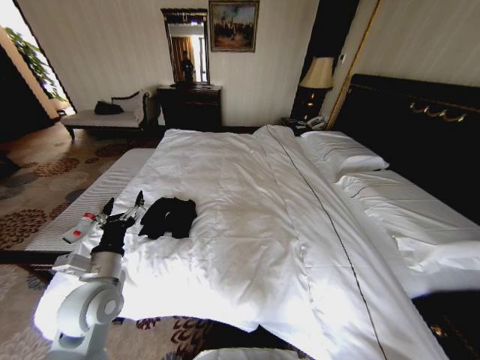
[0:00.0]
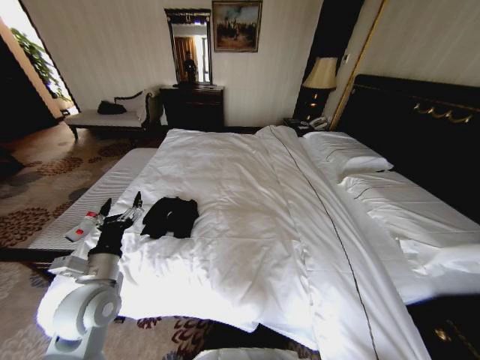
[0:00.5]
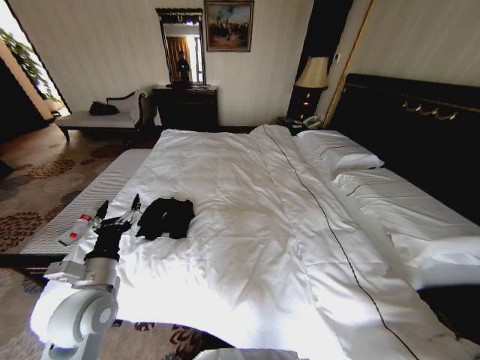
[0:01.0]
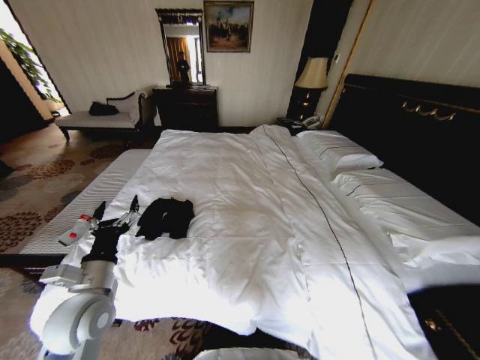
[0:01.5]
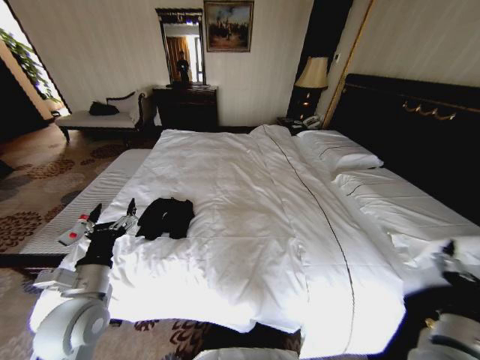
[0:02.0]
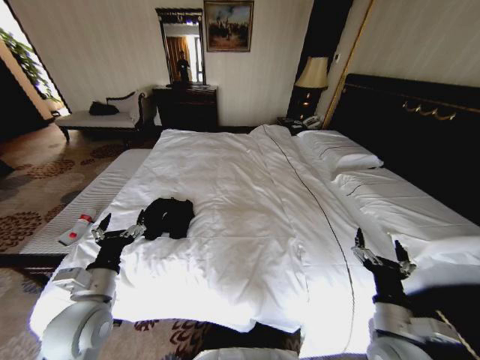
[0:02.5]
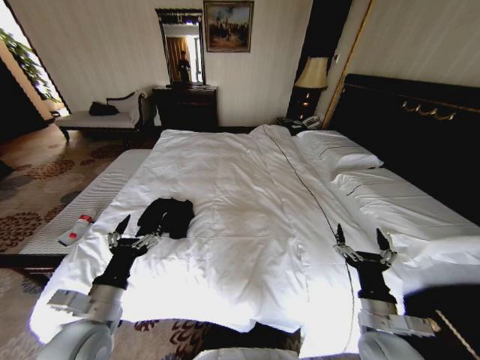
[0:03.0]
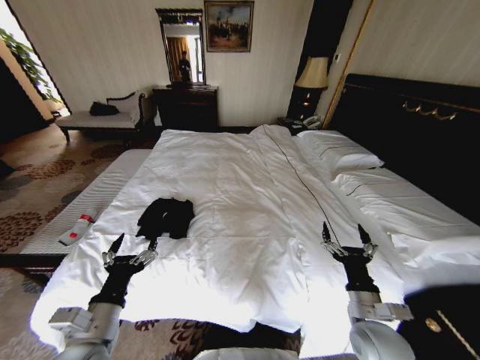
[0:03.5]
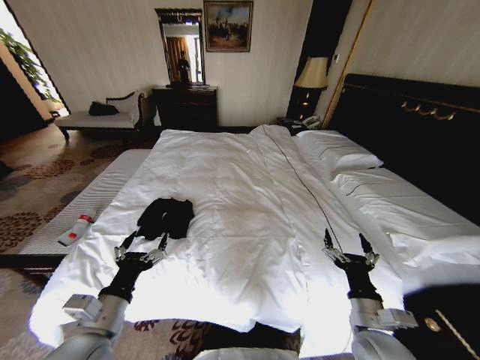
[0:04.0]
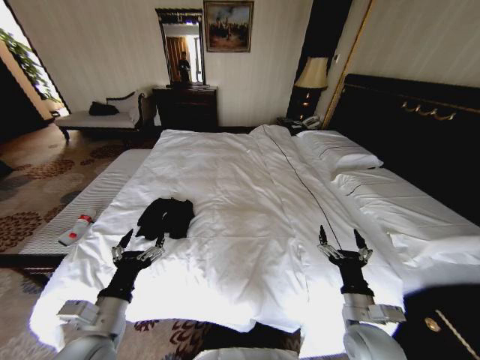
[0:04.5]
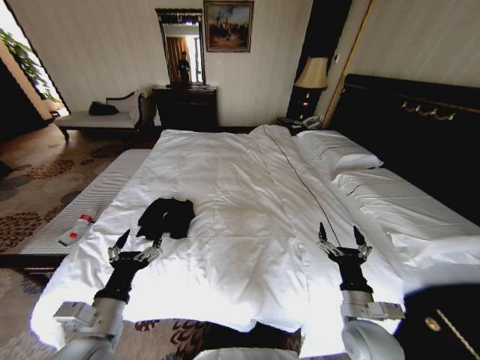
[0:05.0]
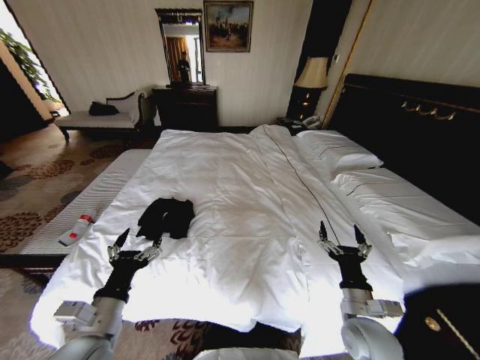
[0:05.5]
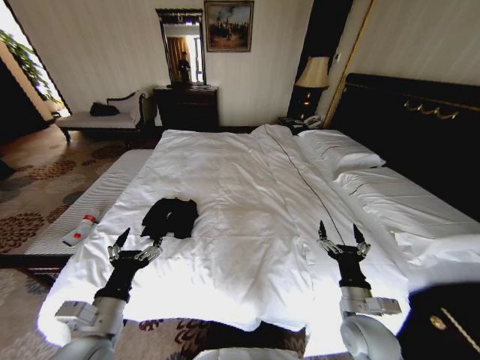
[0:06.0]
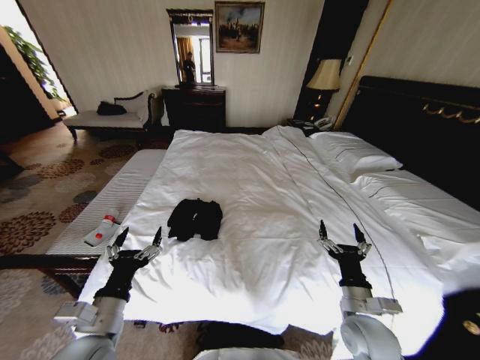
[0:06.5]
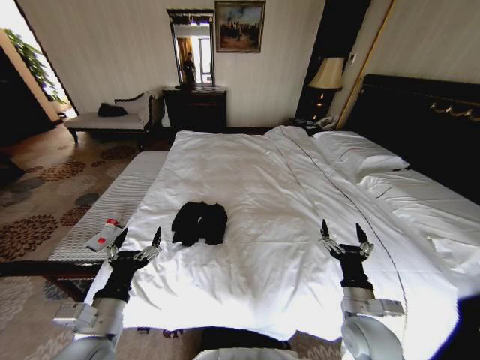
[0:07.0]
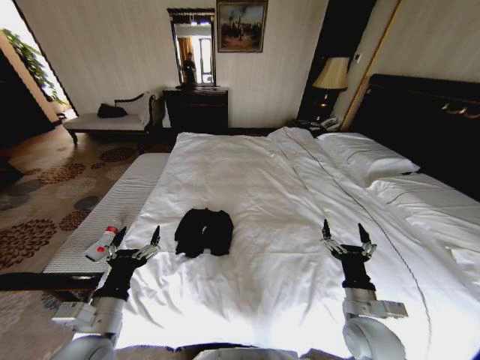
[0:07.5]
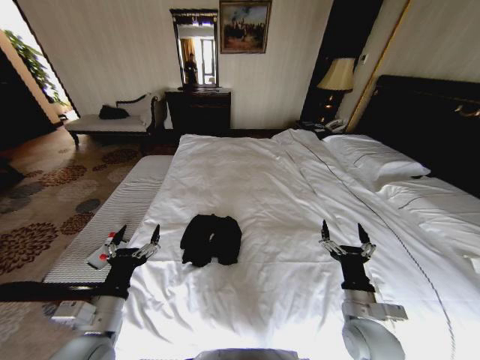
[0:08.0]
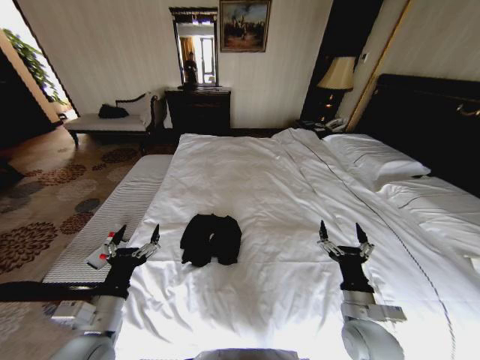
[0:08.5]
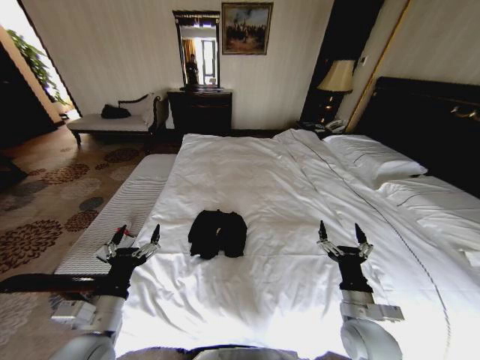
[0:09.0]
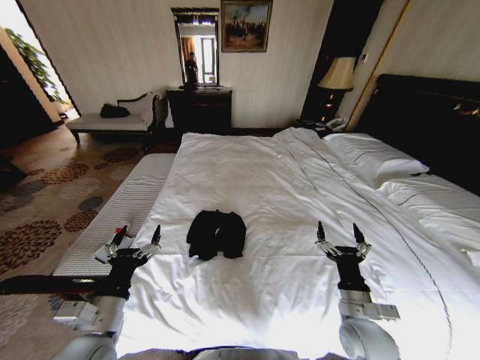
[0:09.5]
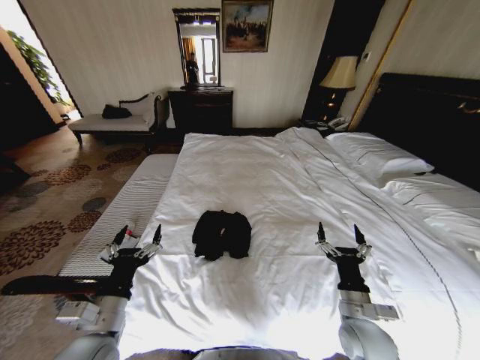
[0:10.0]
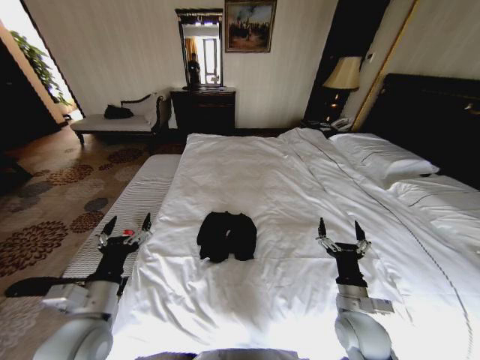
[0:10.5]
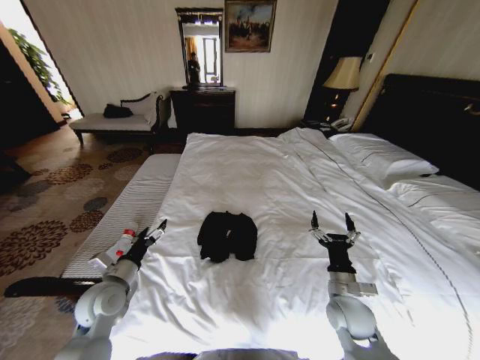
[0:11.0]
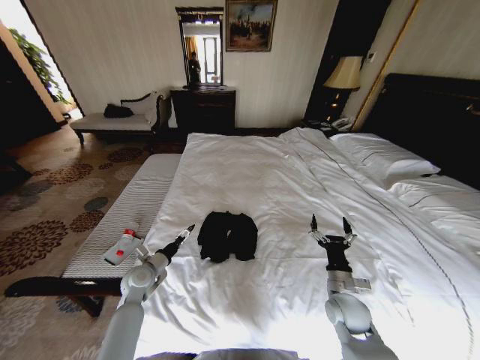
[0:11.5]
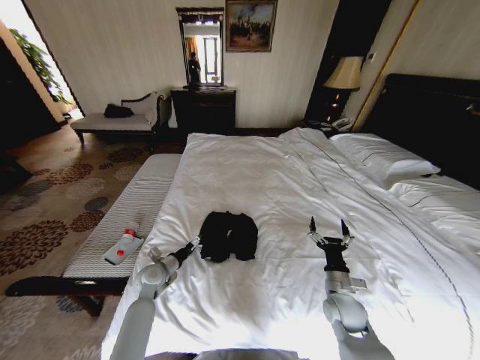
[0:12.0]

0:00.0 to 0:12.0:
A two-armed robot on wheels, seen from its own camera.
Task of the whole recording: Fold the clothes on the bed.
0:00.0 to 0:02.0: The right gripper heads upward and forward, covering roughly 25 cm, and opens.
0:02.0 to 0:04.0: The right gripper moves downward and to the left, some 10 cm, while the left gripper moves backward, approximately 5 cm.
0:04.0 to 0:06.0: The grippers make only small movements.
0:10.0 to 0:12.0: The right gripper heads forward and downward, covering approximately 10 cm; the left gripper heads forward and downward, covering roughly 25 cm.

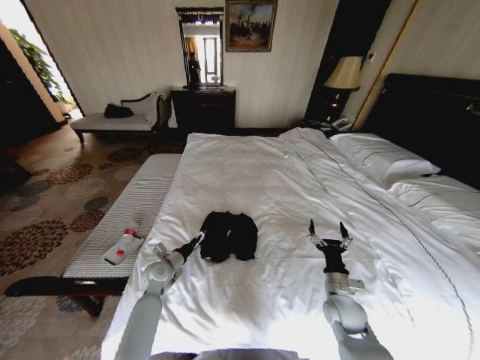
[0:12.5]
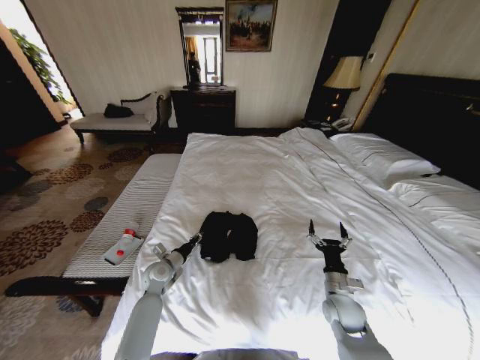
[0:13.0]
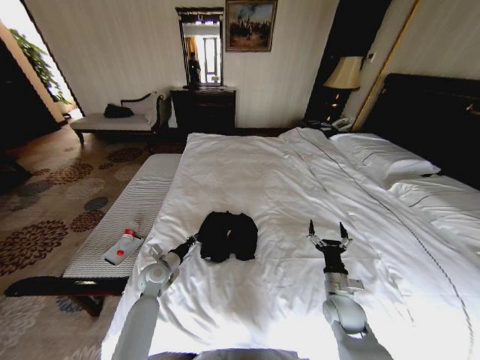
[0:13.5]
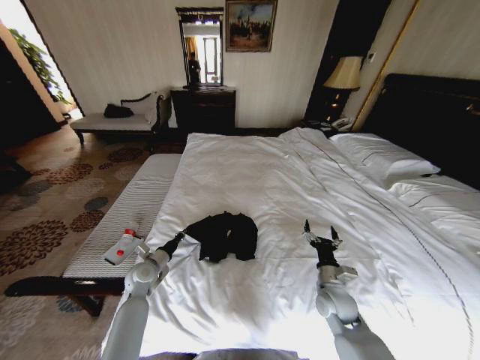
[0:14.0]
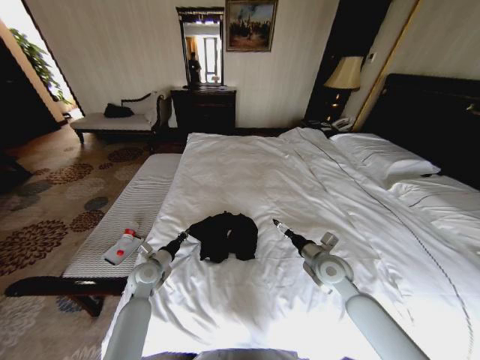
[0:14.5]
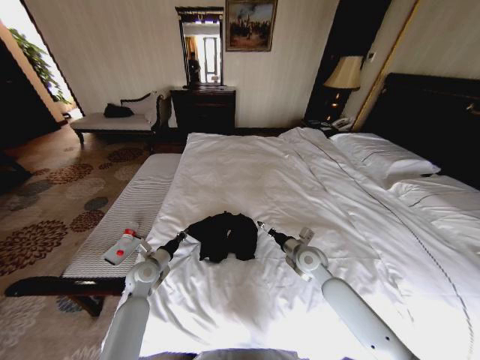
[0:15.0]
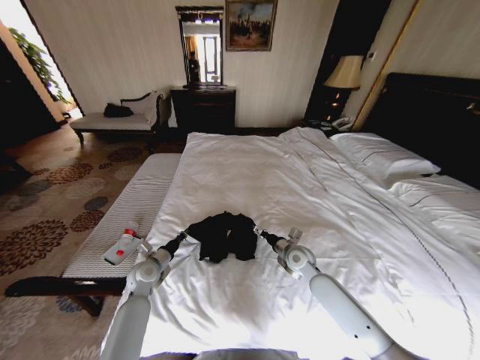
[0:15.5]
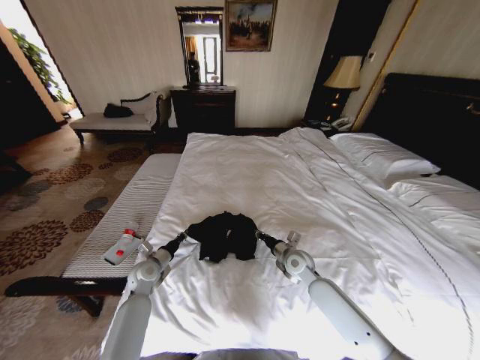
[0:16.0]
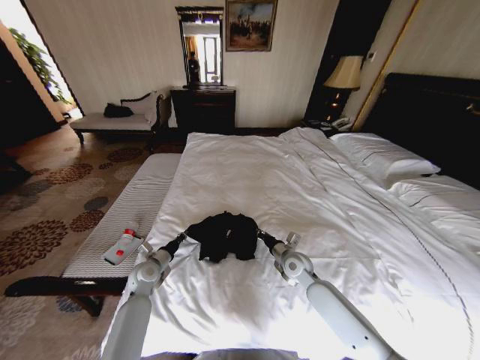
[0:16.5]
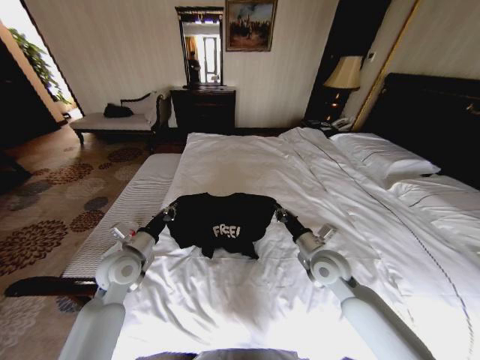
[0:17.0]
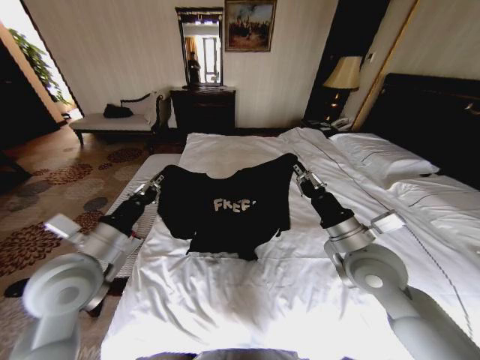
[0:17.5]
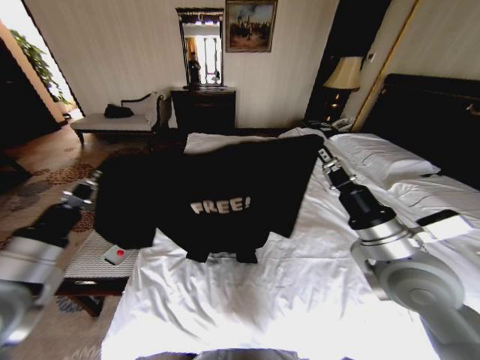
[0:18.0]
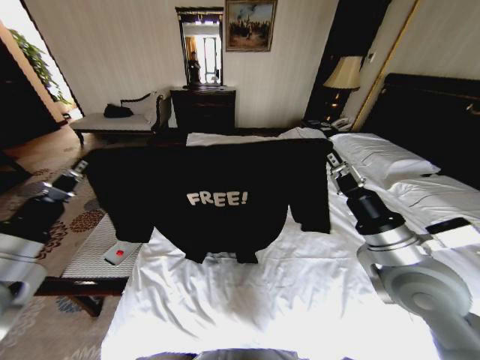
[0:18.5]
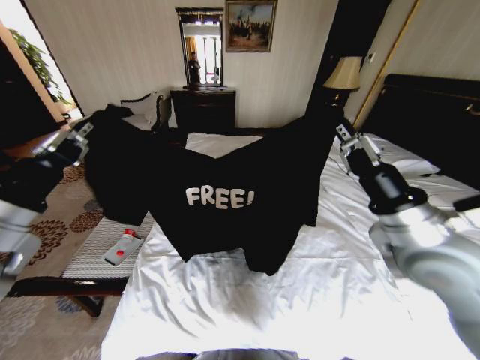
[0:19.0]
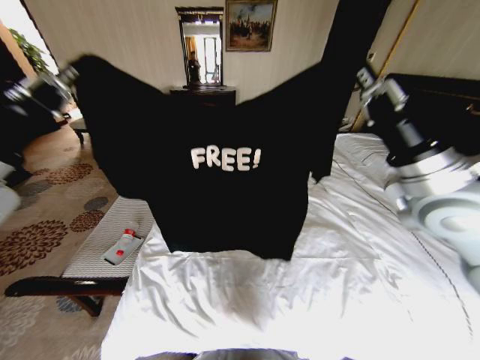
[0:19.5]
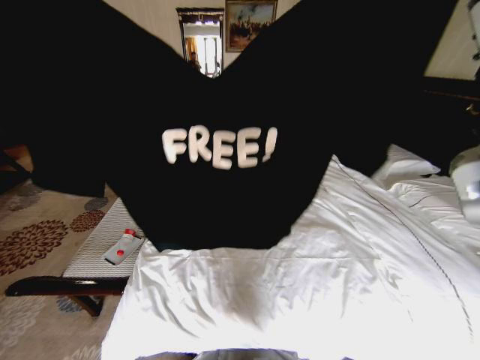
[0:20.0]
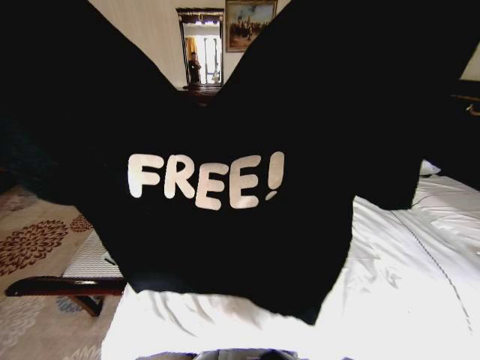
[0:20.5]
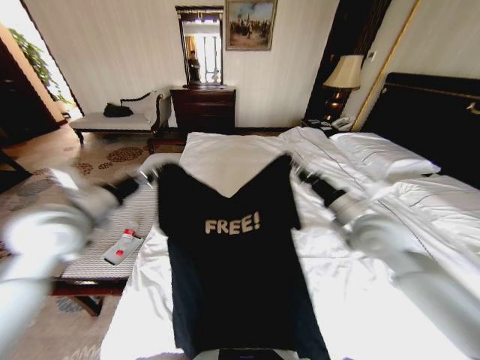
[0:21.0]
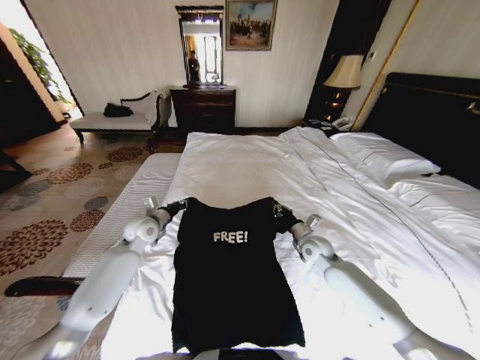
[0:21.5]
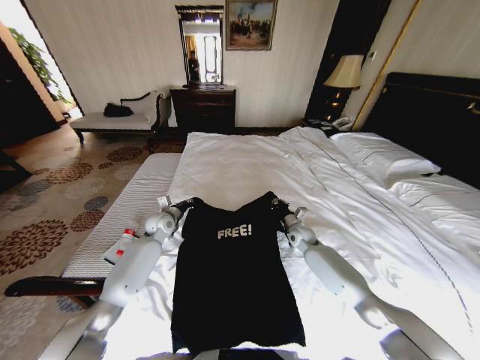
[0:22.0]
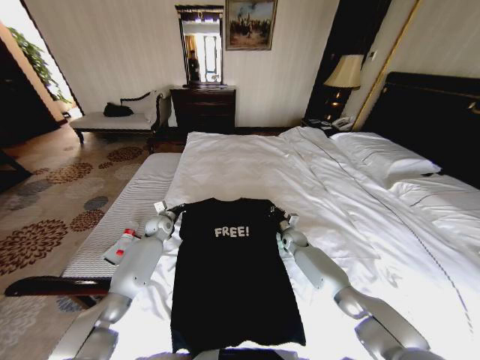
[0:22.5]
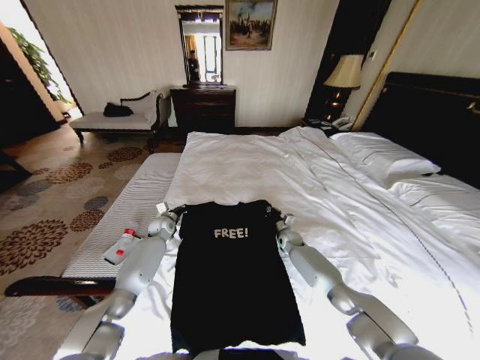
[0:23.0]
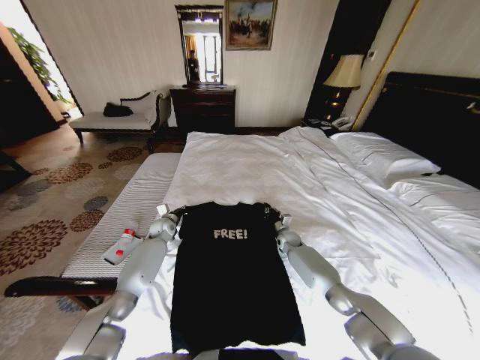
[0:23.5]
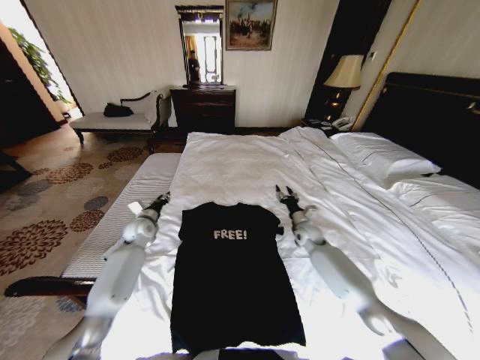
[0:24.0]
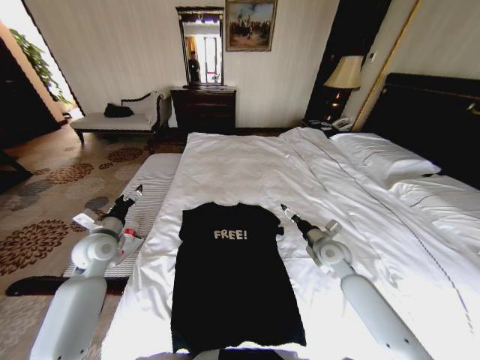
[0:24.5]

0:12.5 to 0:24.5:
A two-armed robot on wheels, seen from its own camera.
Task of the whole recording: Fold the clothes on the bed.
0:12.5 to 0:14.5: The right gripper heads forward and upward, covering roughly 10 cm; the left gripper closes.
0:14.5 to 0:16.5: The right gripper shifts roughly 10 cm to the left and downward, and closes up.
0:16.5 to 0:18.5: Both grippers move upward and backward, approximately 30 cm.
0:18.5 to 0:20.5: The two grippers go about 20 cm upward.
0:20.5 to 0:22.5: Both grippers travel together downward and forward, about 60 cm.
0:22.5 to 0:24.5: The left gripper goes roughly 20 cm backward, upward and to the left, and opens its fingers. Meanwhile the right gripper goes roughly 20 cm backward and upward, and opens.

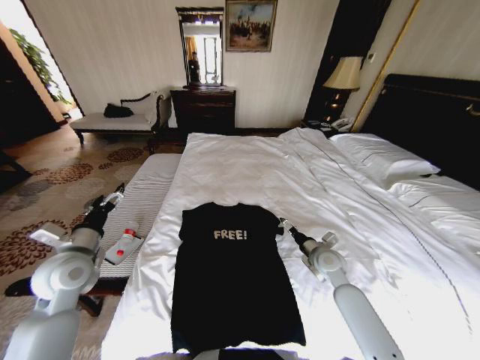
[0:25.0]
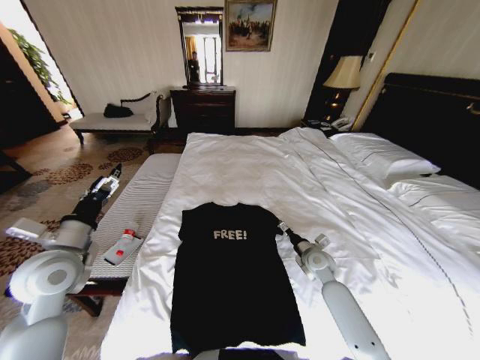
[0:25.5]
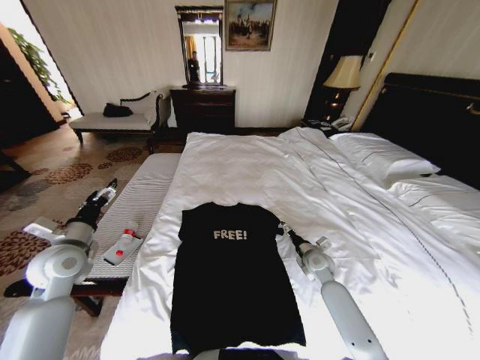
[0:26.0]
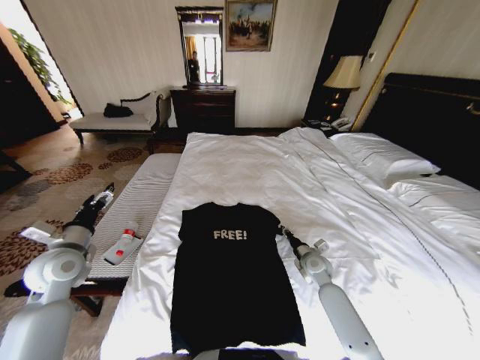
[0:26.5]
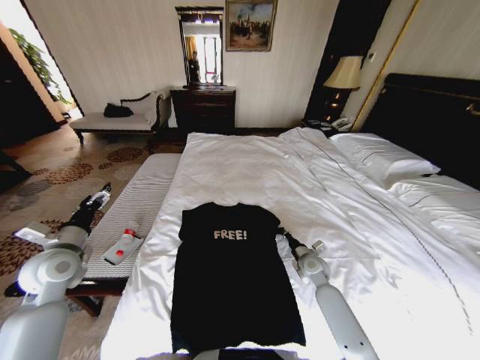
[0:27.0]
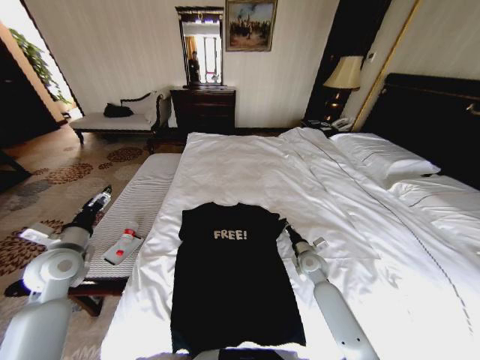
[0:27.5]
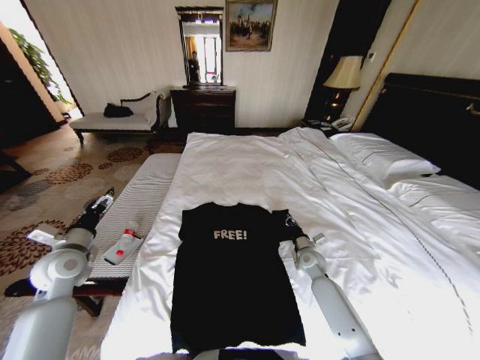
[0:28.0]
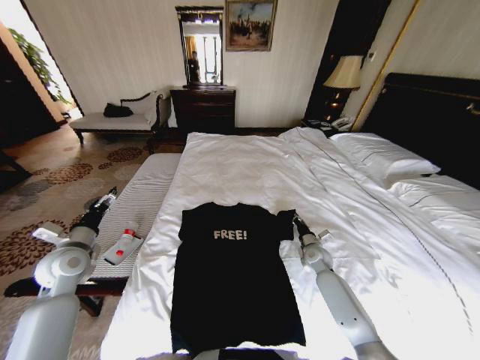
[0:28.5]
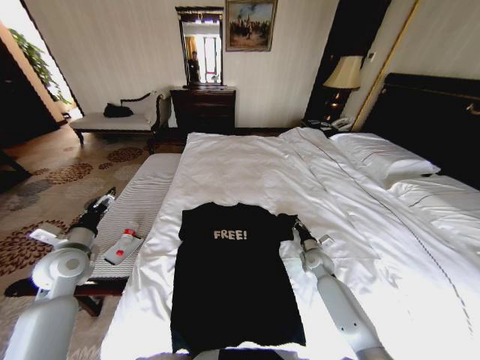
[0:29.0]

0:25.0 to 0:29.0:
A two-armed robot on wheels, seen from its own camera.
Task of the whole recording: Fold the clothes on the bed.
0:25.0 to 0:27.0: The right gripper travels downward by about 5 cm, and closes.
0:27.0 to 0:29.0: The right gripper changes place by some 5 cm.
